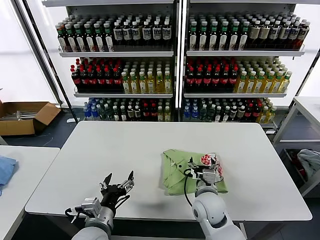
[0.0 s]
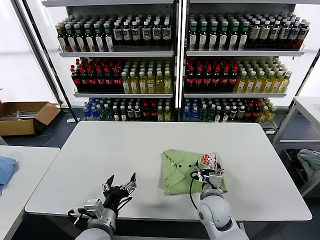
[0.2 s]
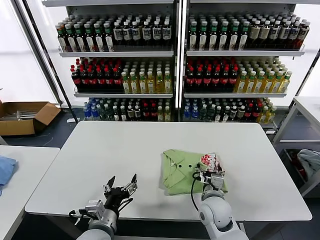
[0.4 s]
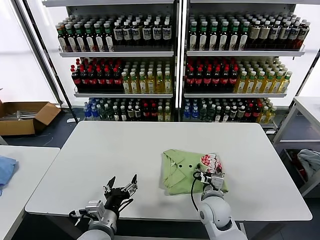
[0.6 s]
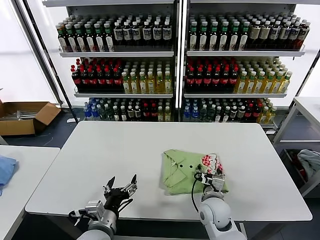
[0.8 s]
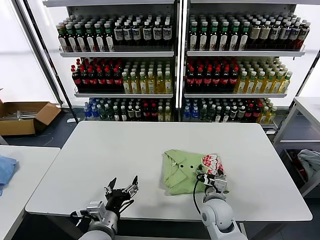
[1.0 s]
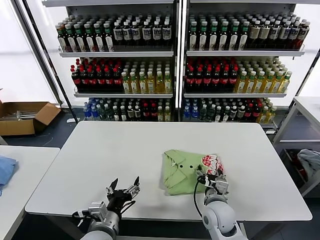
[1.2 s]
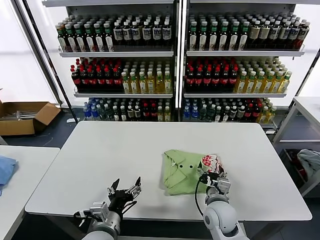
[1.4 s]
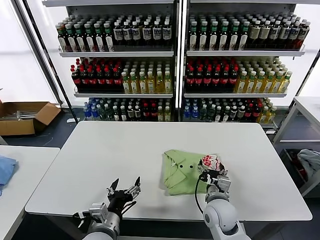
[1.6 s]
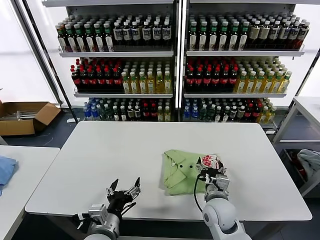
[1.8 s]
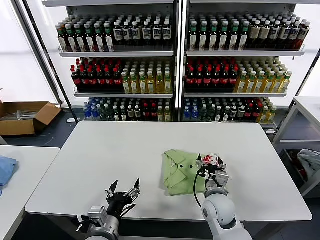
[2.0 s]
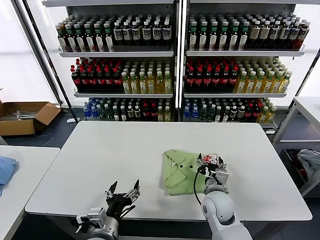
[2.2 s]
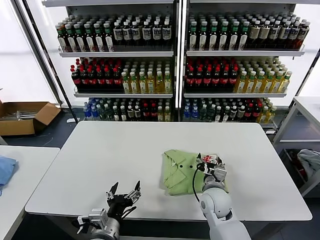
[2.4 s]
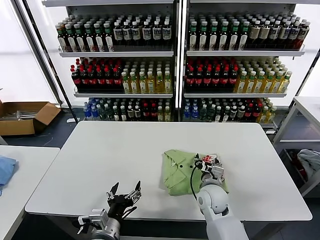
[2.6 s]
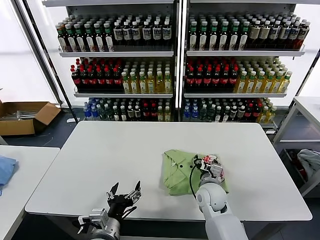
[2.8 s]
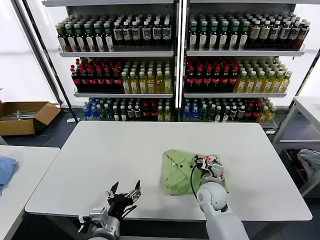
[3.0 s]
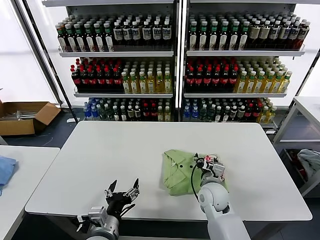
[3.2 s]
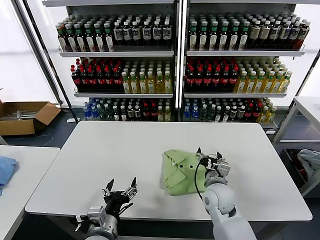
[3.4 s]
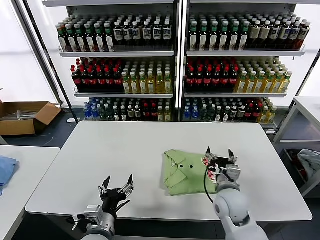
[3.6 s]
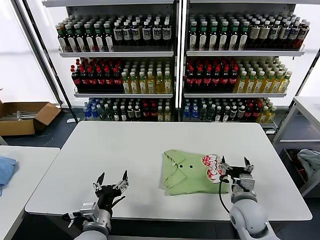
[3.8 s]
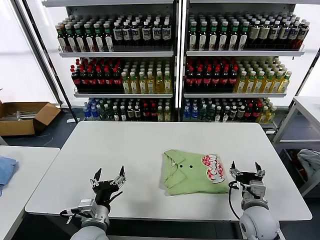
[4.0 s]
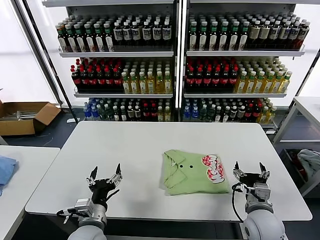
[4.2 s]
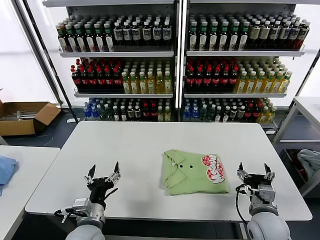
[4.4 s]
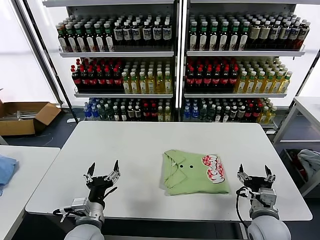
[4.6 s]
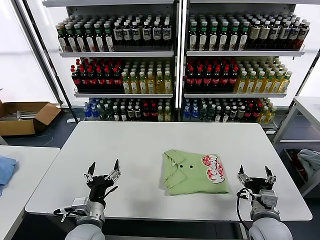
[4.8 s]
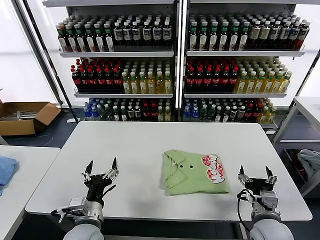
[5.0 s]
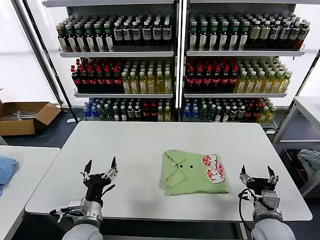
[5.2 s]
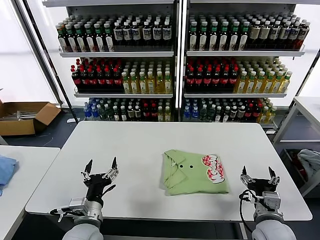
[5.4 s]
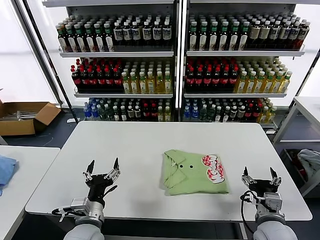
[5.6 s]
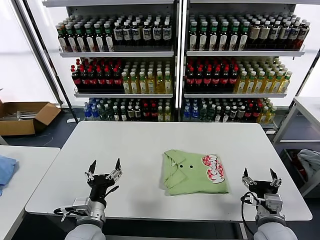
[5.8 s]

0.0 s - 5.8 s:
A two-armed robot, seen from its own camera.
Task of the whole recording: fold and organize the clothes.
Step, 0.0 s - 3.4 s: Drag the clothes to the center of the table.
0.0 s - 1.4 s: The grippers make only small movements.
1.4 s - 2.8 s: The right gripper travels forward by some 5 cm.
2.8 s - 4.4 s: The left gripper moves some 5 cm, while the right gripper shifts approximately 15 cm to the right and backward.
4.4 s - 5.8 s: The grippers stay close to where they were, moving slightly.

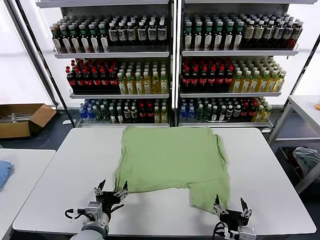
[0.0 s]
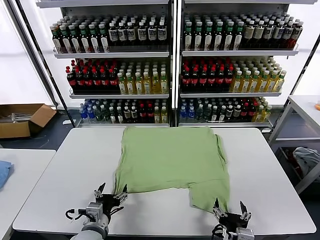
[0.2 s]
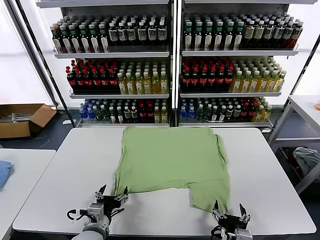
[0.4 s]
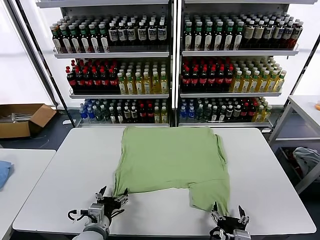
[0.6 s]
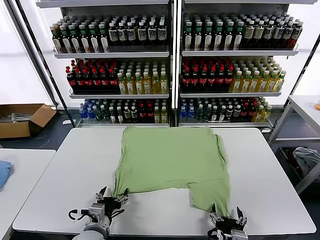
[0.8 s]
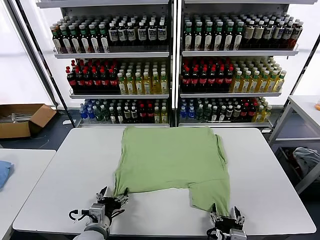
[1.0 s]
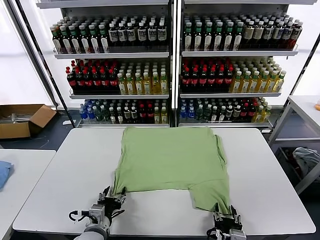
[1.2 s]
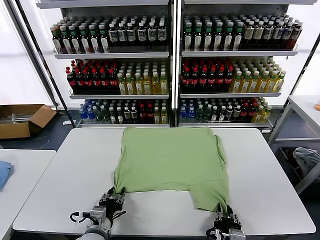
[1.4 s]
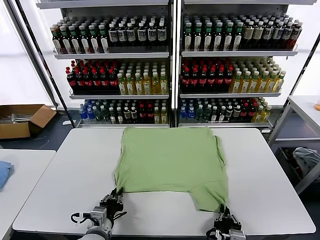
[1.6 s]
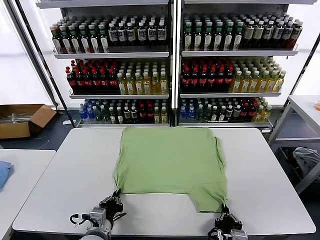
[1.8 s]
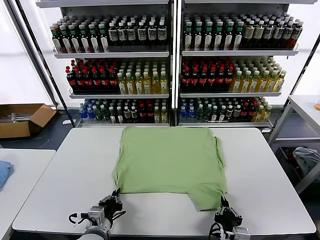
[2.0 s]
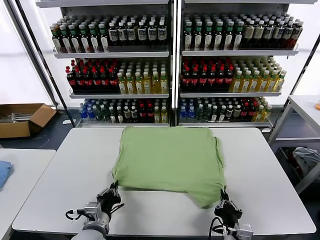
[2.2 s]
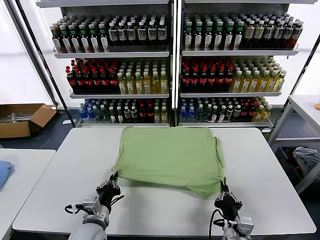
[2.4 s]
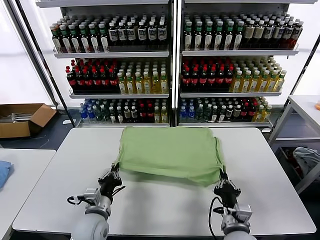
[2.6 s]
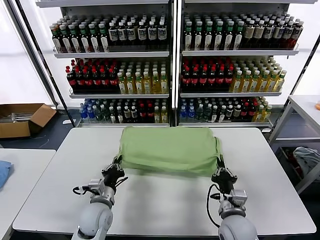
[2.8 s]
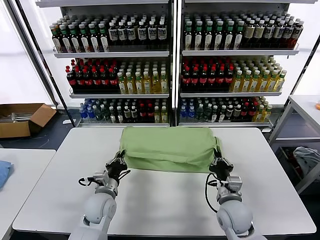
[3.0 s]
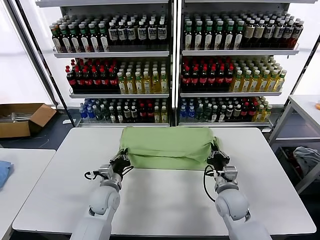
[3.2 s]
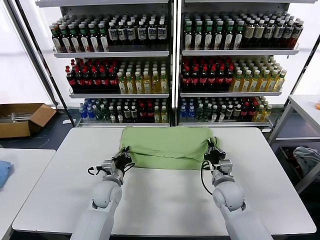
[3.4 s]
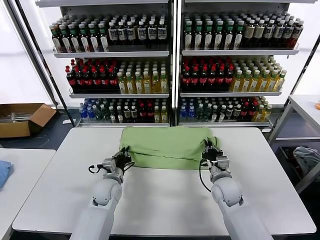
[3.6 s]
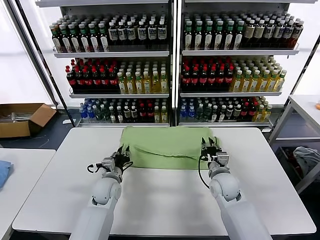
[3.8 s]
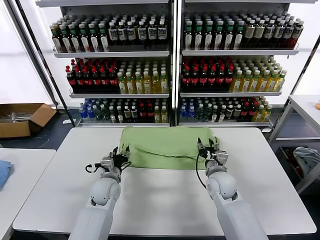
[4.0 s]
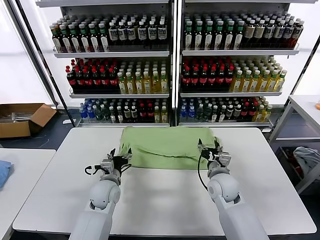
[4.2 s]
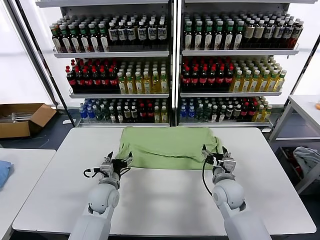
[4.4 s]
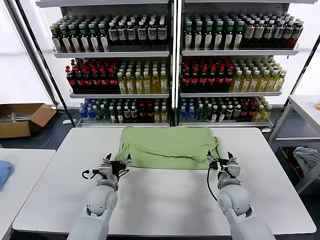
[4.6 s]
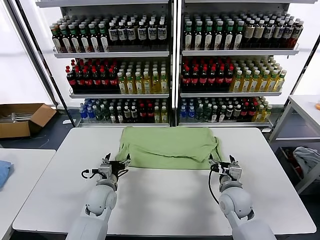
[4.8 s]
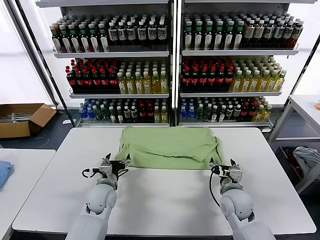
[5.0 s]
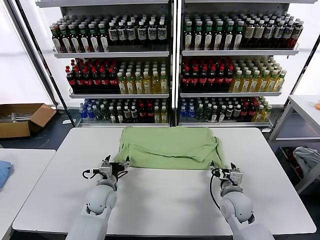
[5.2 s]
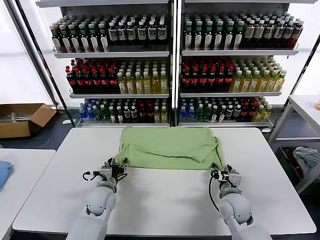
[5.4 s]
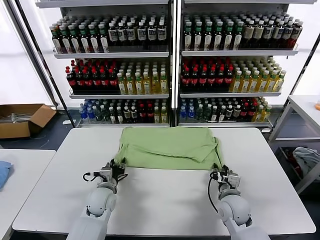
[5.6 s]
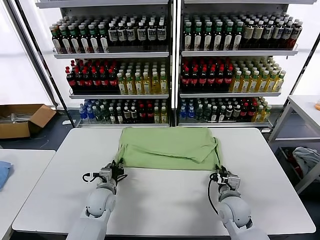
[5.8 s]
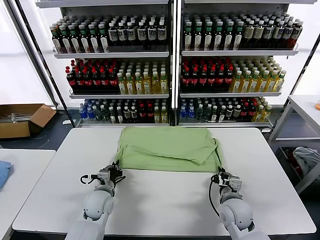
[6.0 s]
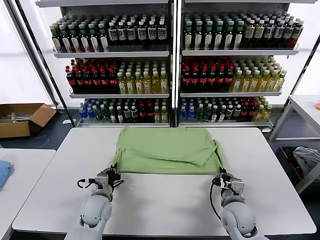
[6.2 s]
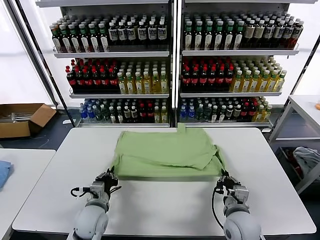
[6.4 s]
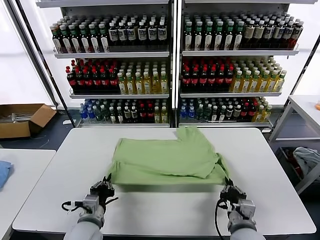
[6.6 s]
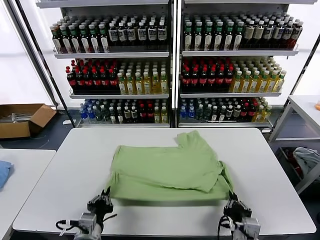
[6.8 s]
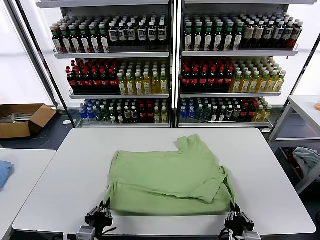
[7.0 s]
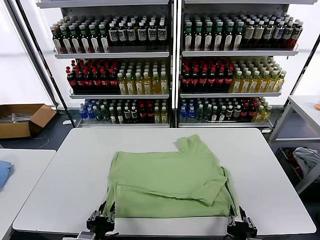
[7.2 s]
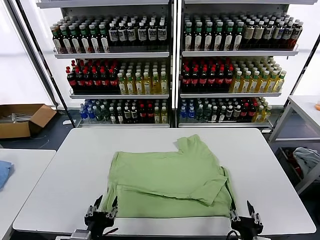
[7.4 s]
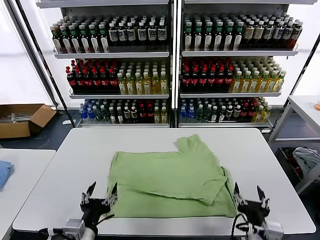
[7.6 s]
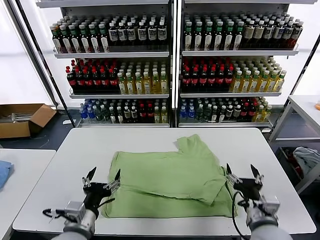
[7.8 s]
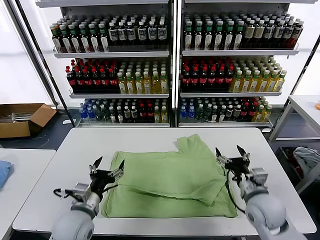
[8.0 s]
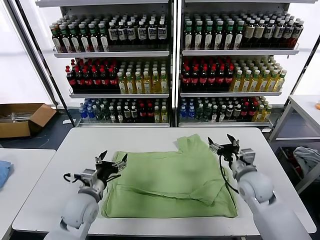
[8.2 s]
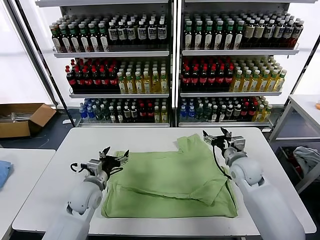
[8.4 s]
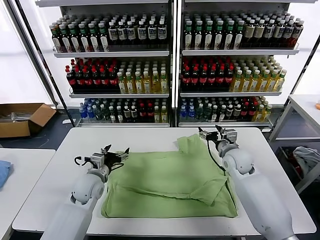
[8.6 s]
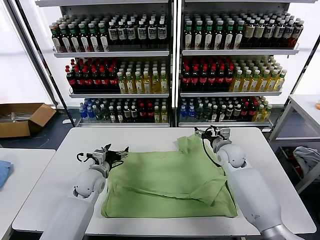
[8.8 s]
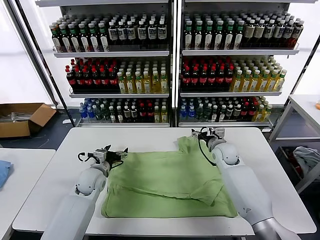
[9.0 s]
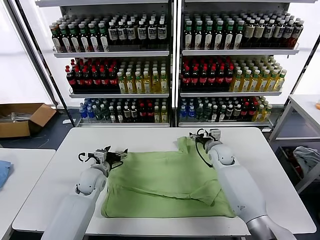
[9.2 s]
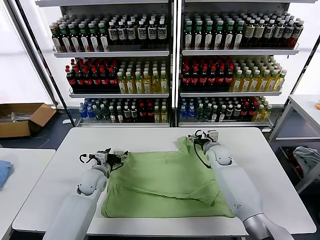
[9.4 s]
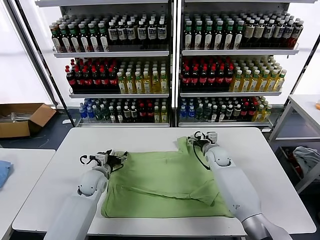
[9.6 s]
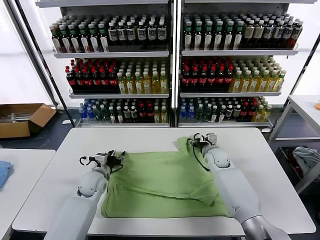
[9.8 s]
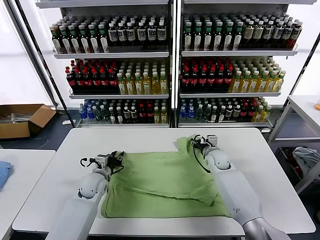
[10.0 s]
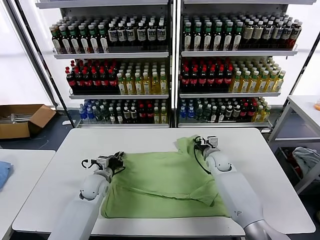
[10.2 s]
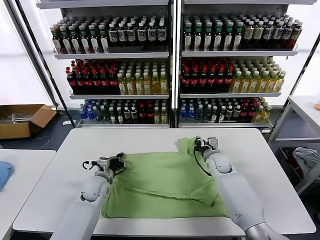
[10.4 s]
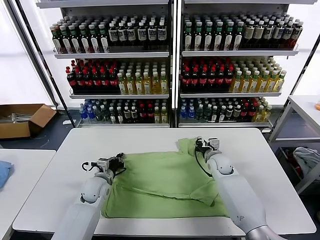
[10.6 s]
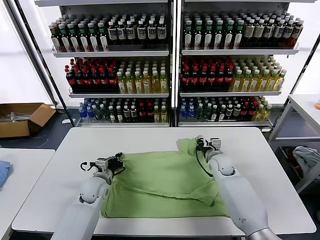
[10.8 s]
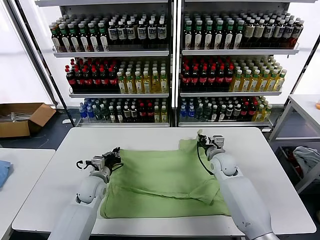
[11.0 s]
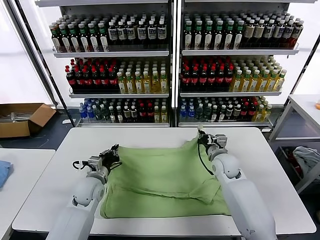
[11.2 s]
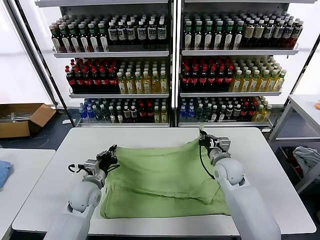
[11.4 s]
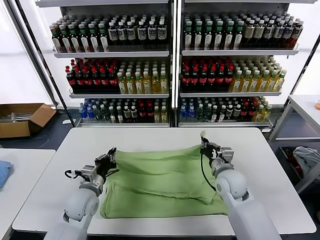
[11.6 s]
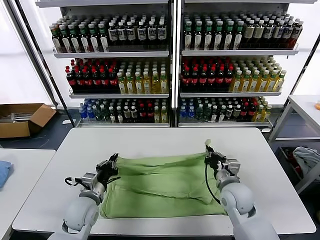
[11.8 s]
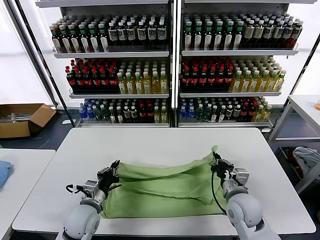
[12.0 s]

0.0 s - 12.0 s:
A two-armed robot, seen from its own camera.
Task of the whole recording: fold and organize the clothes.
Step, 0.0 s - 1.8 s: use both grippers simultaneously to clamp the lower edge of the clothing fabric.
Step, 2.0 s - 3.8 s: use both grippers to drag the lower edge of the fabric forward and fold it over the upper edge.
Step, 4.0 s - 7.2 s: Drag the clothes downward with both gripper.
Step, 7.4 s - 10.4 s: use both grippers simultaneously to clamp the upper edge of the clothing fabric.
1.6 s - 3.0 s: The two grippers go roughly 15 cm forward.
3.0 s - 4.4 s: The right gripper opens up. The left gripper opens.
4.4 s - 6.0 s: The left gripper closes its fingers. Meanwhile the right gripper shifts by some 5 cm, and closes its fingers.
6.0 s - 7.6 s: The left gripper shifts about 25 cm backward and upward, and opens. The right gripper moves backward and upward, some 15 cm, and opens.
7.6 s - 9.0 s: The two grippers go some 30 cm forward.
9.0 s - 10.4 s: The left gripper closes; the right gripper closes.
10.4 s - 12.0 s: The right gripper goes roughly 20 cm backward, while the left gripper moves backward, roughly 10 cm.

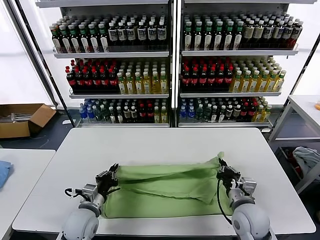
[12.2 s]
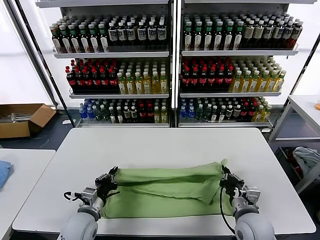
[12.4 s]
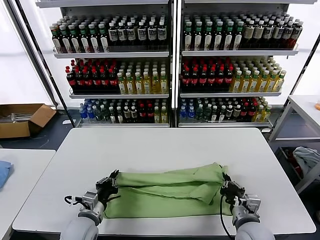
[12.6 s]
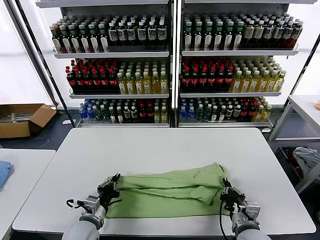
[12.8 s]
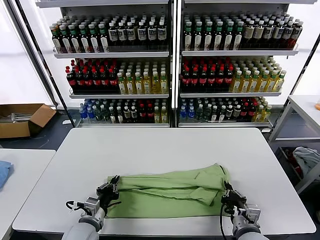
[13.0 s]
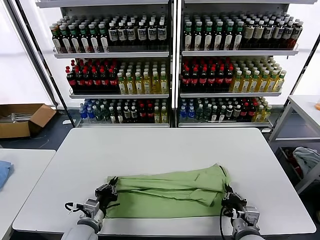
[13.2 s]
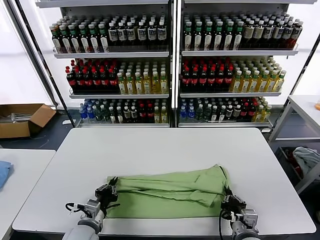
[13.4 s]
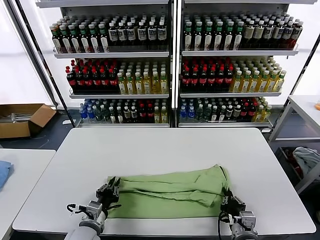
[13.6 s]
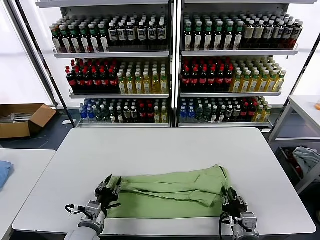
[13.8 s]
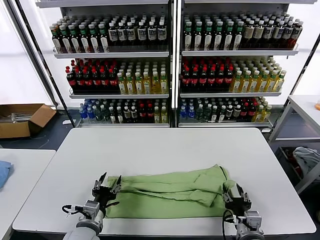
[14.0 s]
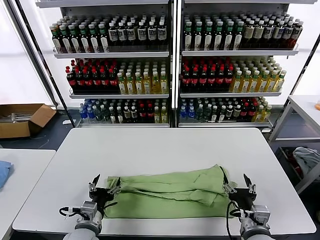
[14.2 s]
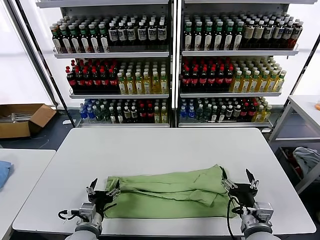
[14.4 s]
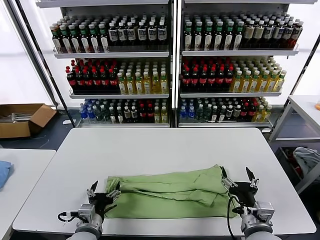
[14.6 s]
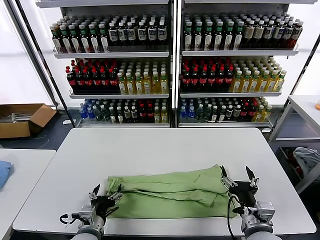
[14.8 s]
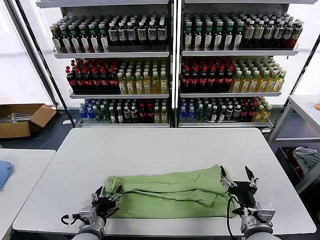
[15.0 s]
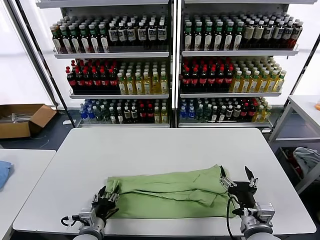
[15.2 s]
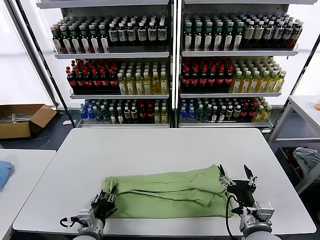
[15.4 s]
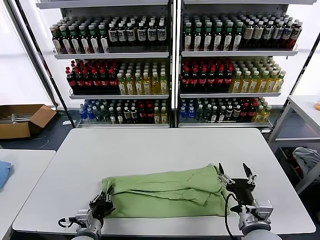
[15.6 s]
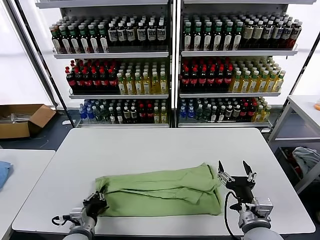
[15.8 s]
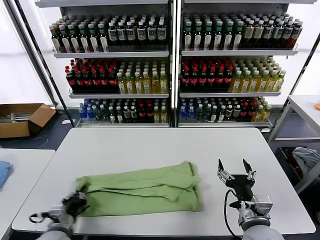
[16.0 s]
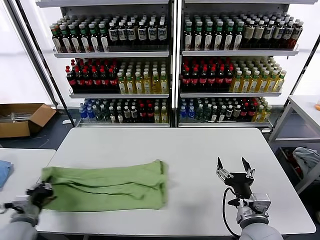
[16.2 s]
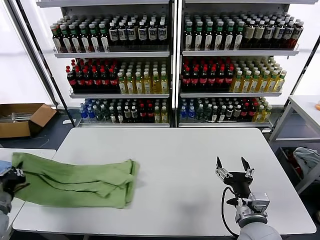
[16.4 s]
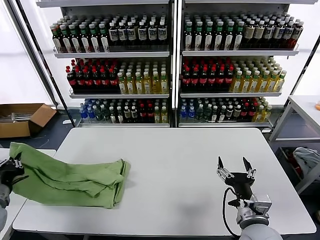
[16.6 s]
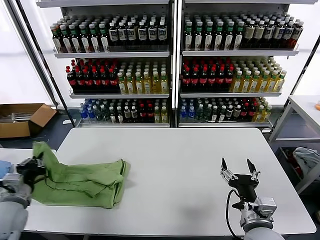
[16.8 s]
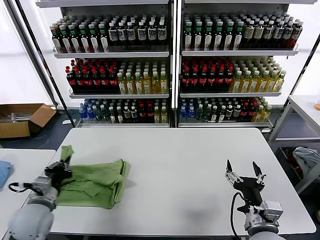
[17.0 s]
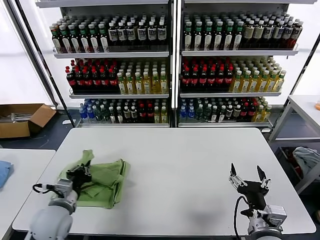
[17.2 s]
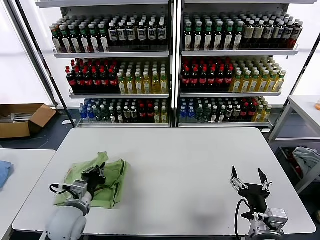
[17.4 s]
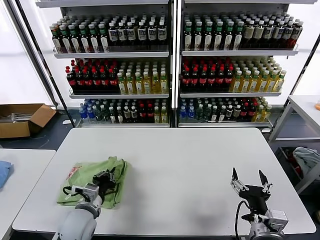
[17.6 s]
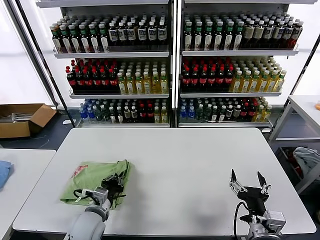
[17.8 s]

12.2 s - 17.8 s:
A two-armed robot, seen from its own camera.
Task of the whole recording: fold and organize the clothes.
Step, 12.2 s - 14.0 s: use both grippers to drag the upper edge of the fabric backward and fold it over the lower edge.
Step, 14.2 s - 15.6 s: use the left gripper to clamp the left edge of the fabric.
12.2 s - 13.6 s: The left gripper shifts by roughly 5 cm; the right gripper shifts some 5 cm backward.
13.6 s - 15.0 s: The left gripper opens, while the right gripper heads upward, covering some 10 cm, and opens.
15.0 s - 16.4 s: The left gripper travels to the left by some 25 cm, and closes up.
16.4 s - 17.8 s: The left gripper shifts approximately 25 cm to the right.
